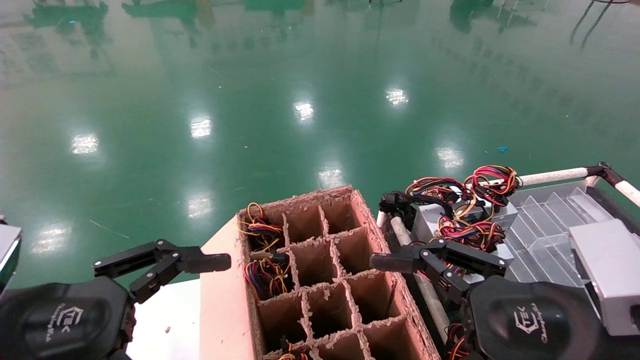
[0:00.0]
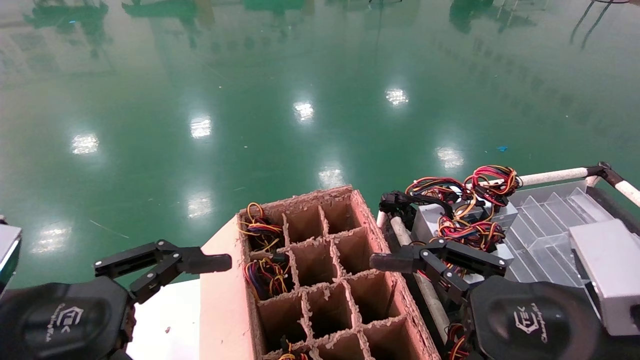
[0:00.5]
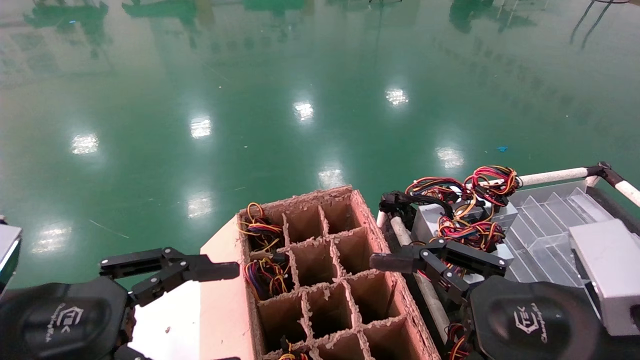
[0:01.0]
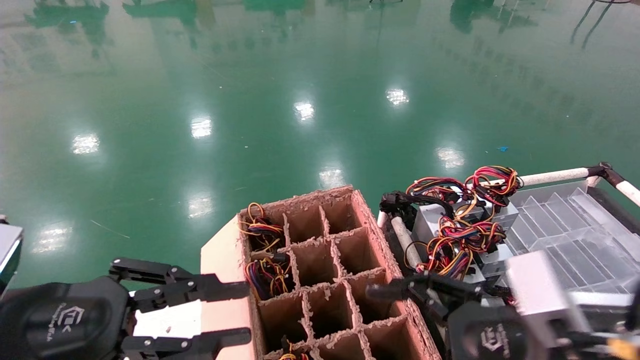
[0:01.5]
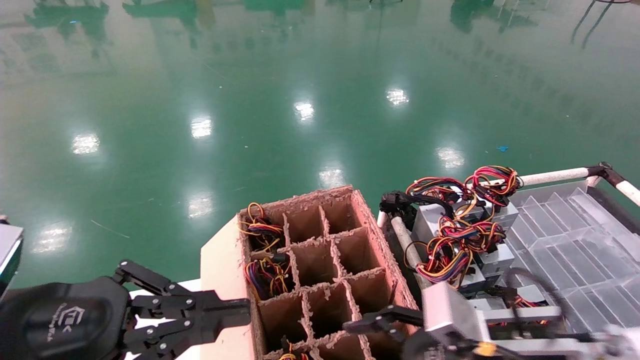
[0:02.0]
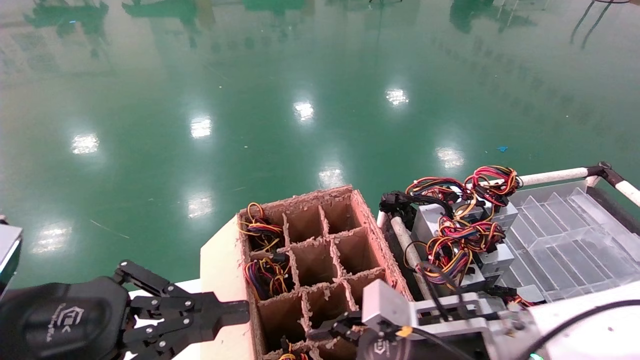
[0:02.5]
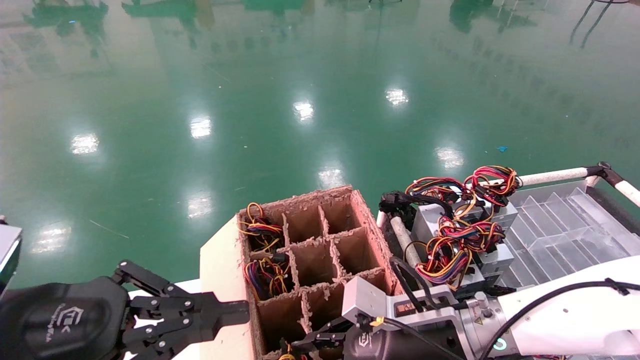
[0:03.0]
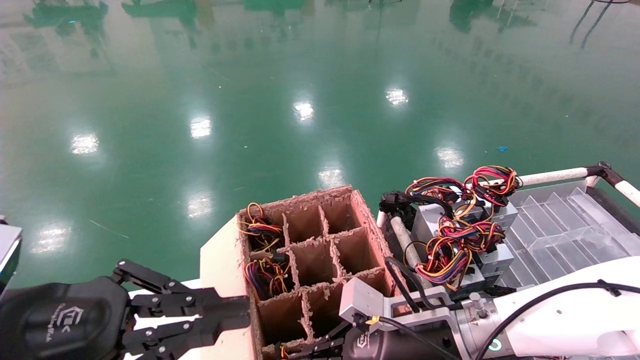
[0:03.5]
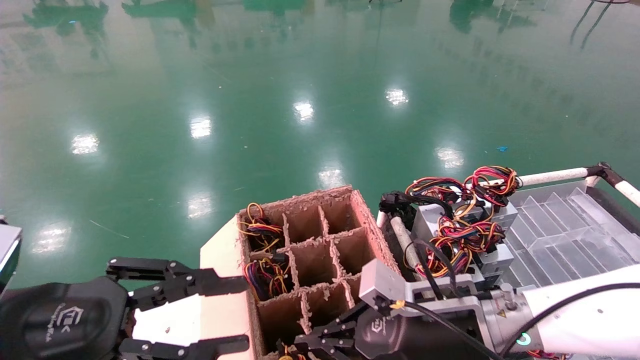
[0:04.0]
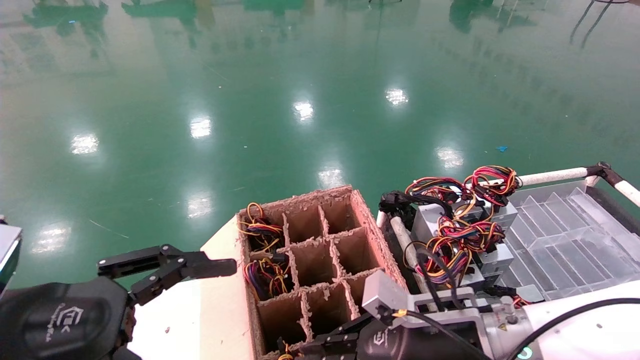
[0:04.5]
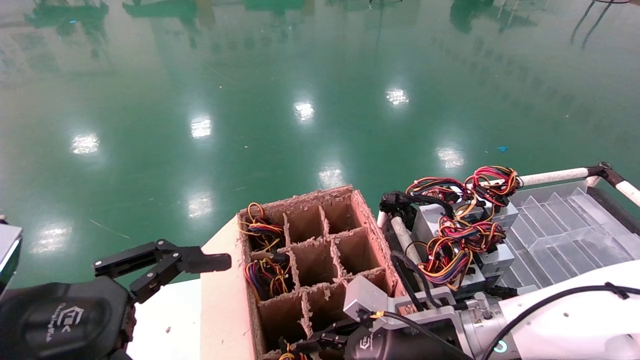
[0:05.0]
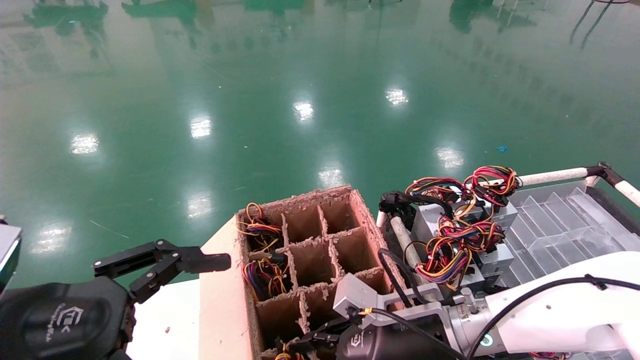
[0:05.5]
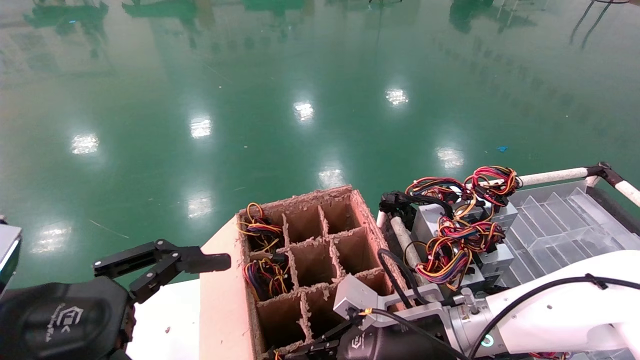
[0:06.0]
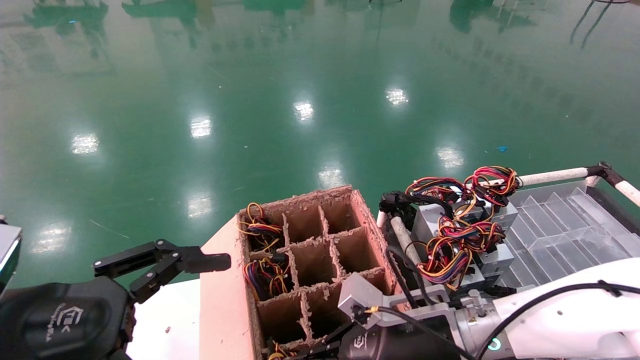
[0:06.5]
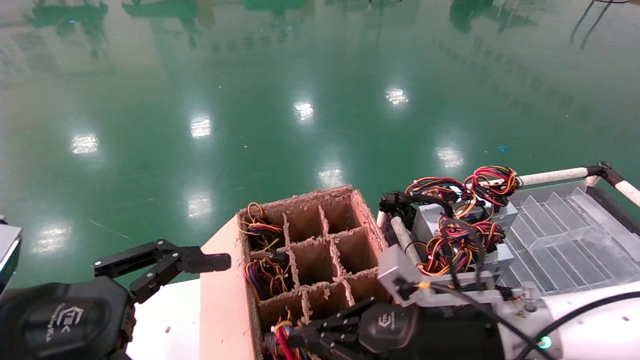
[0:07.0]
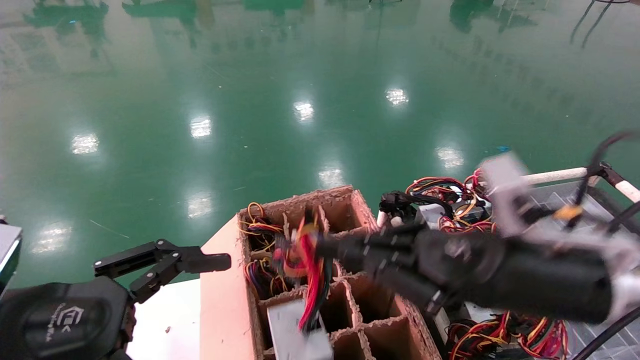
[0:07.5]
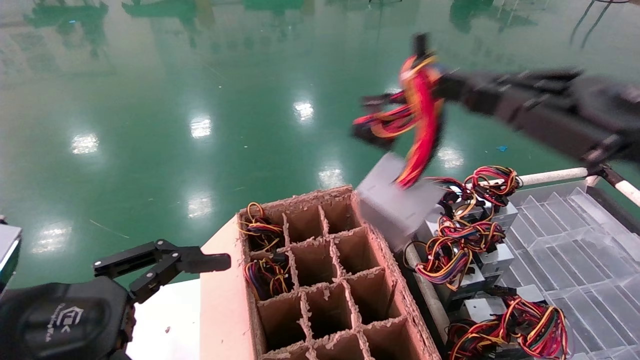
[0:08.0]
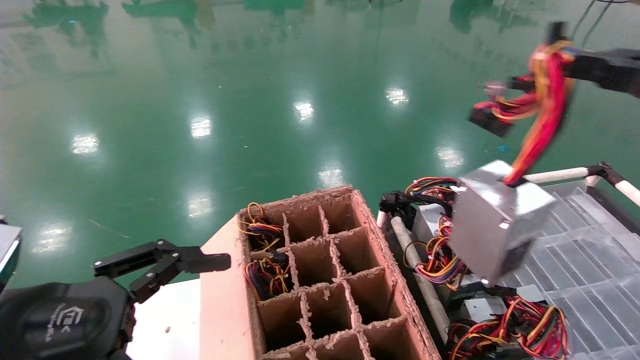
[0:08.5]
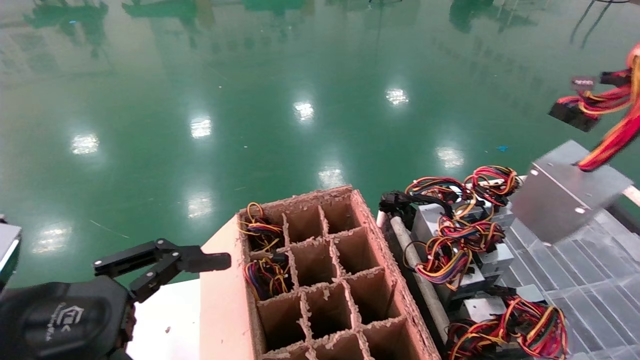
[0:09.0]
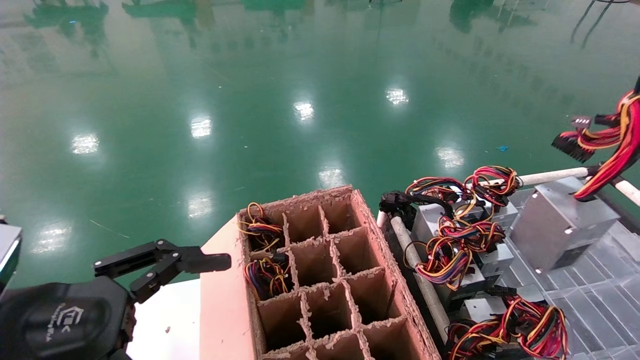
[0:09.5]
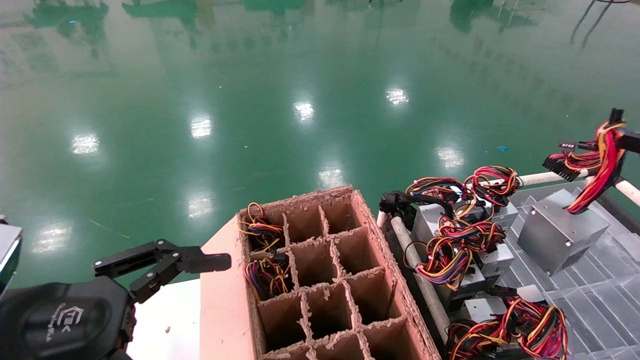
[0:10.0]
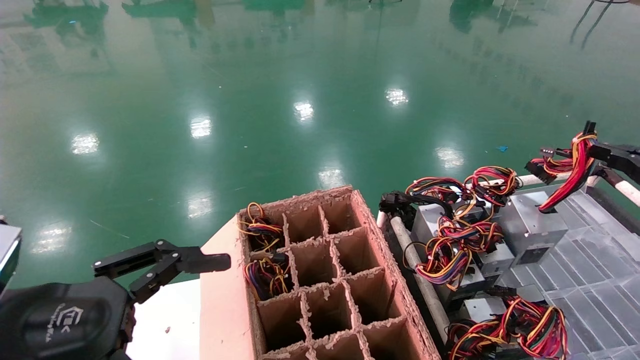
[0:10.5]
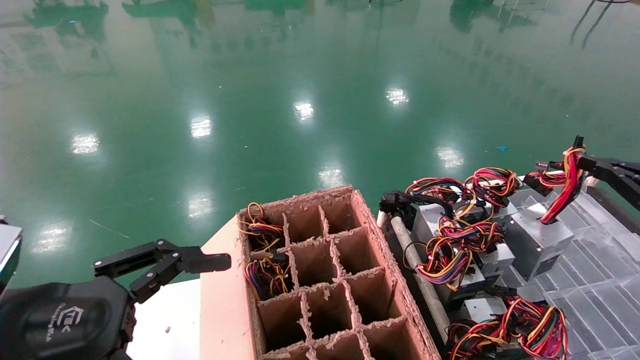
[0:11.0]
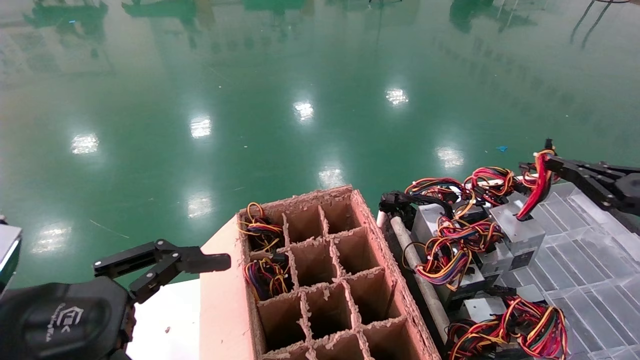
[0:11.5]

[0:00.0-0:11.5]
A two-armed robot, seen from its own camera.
Step, 0:01.5 to 0:06.0: Grab and lift the power supply from the large box.
0:00.0 to 0:02.0: The left gripper closes; the right gripper moves downward and forward, roughly 10 cm.
0:02.0 to 0:04.0: The right gripper shifts some 5 cm forward, and closes up.
0:04.0 to 0:06.0: The left gripper opens.
0:06.0 to 0:07.5: The right gripper is displaced upward, to the right and backward by roughly 15 cm.
0:07.5 to 0:09.5: The right gripper goes some 30 cm to the right.
0:09.5 to 0:11.5: The right gripper moves forward and downward, some 15 cm.

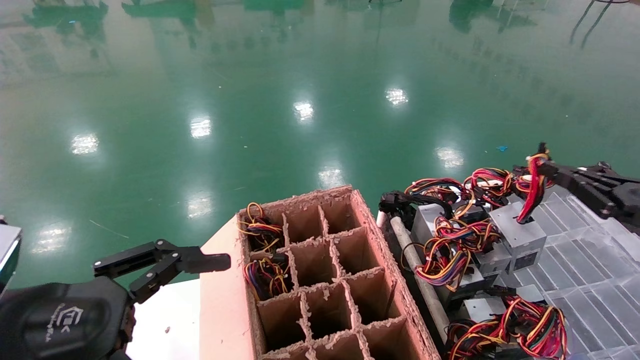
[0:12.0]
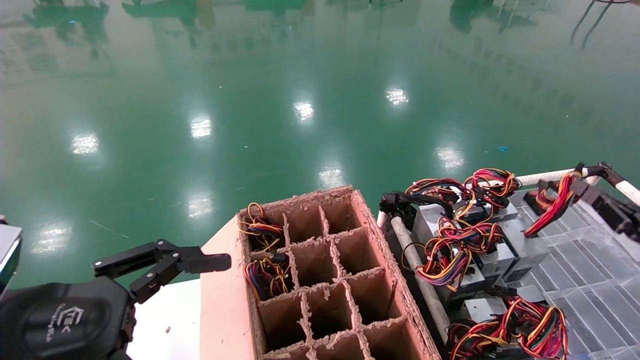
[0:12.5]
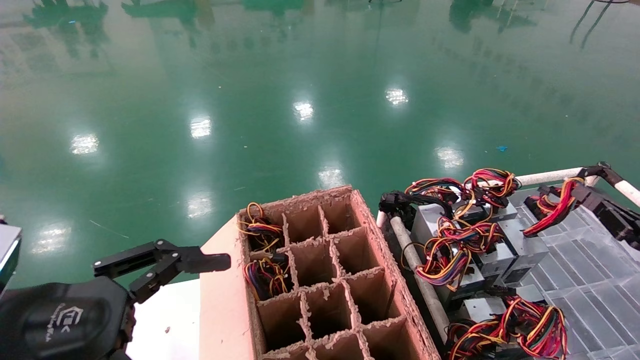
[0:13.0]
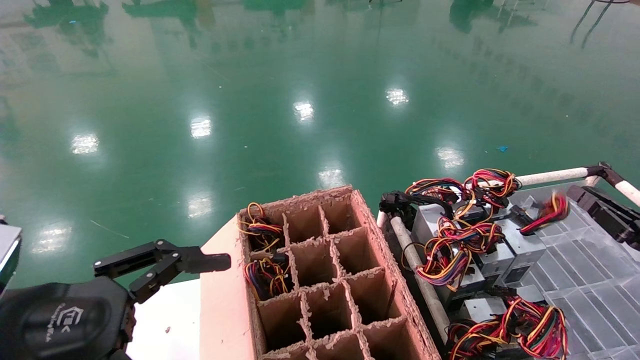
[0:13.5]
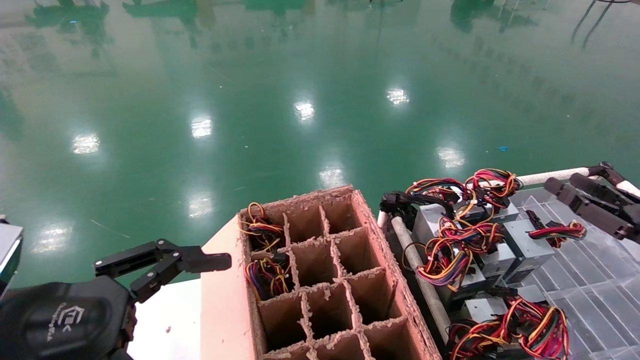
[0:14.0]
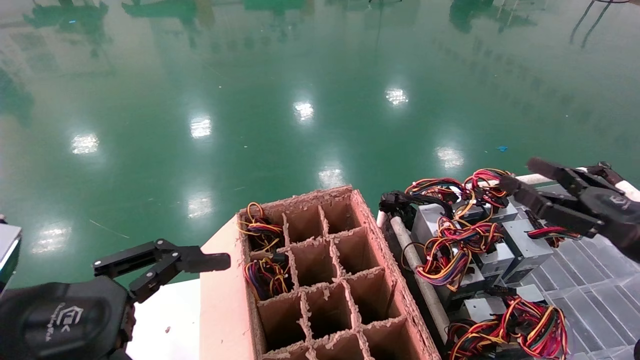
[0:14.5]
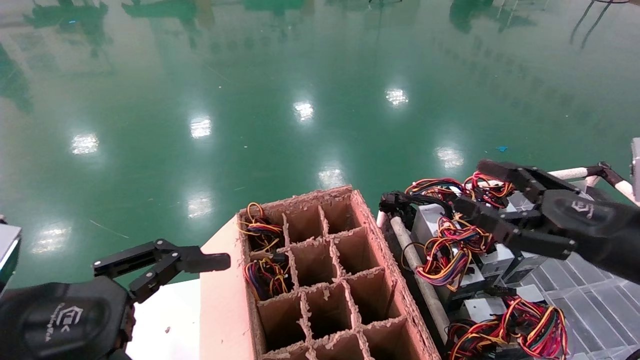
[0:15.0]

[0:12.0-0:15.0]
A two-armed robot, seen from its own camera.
0:12.0 to 0:13.5: The right gripper moves downward, some 5 cm.
0:13.5 to 0:15.0: The right gripper shifts about 15 cm to the left and upward, and opens.
